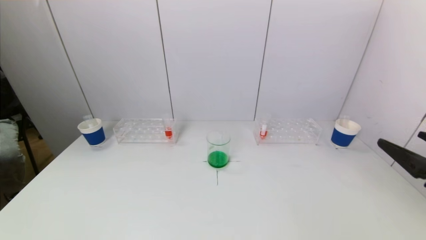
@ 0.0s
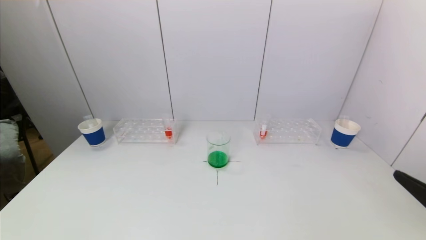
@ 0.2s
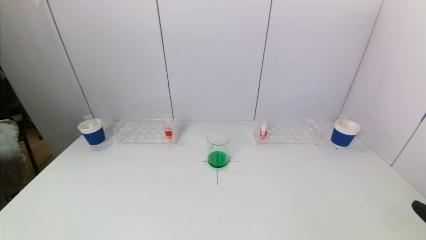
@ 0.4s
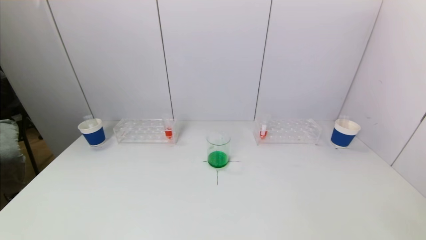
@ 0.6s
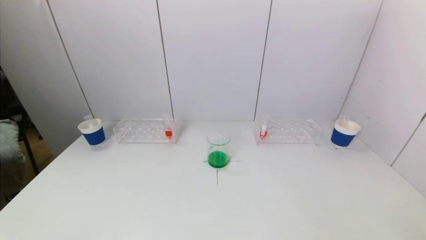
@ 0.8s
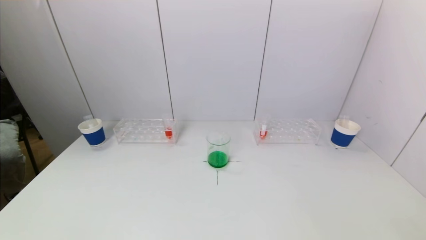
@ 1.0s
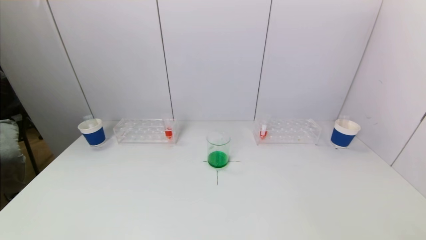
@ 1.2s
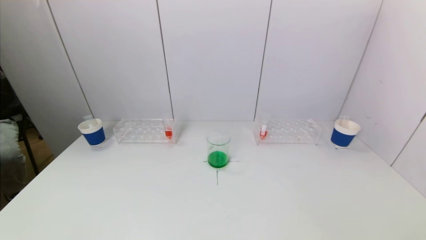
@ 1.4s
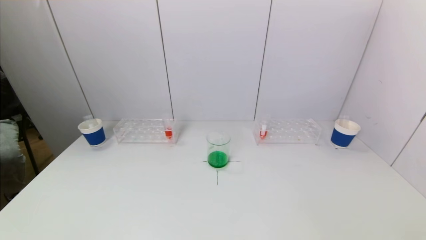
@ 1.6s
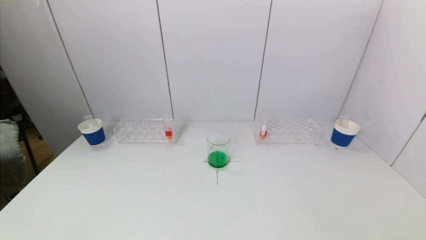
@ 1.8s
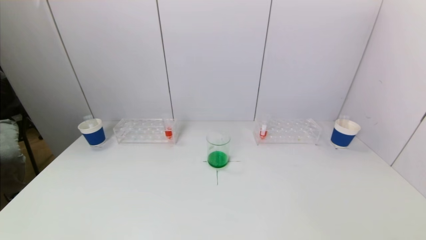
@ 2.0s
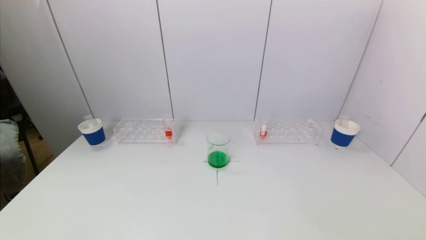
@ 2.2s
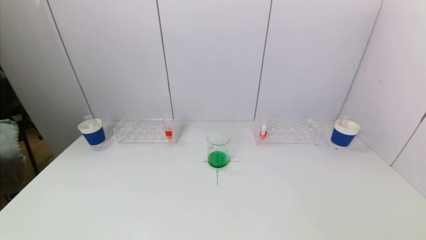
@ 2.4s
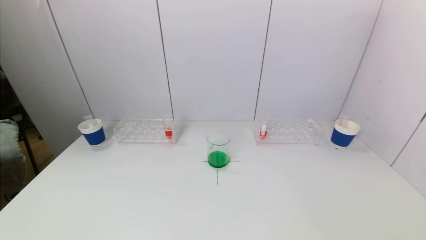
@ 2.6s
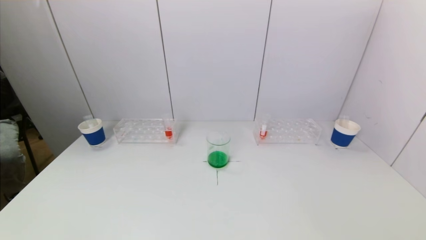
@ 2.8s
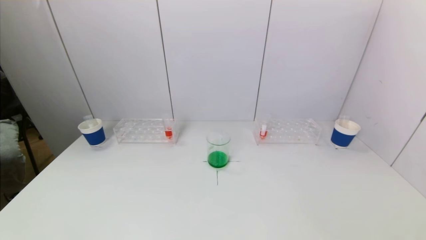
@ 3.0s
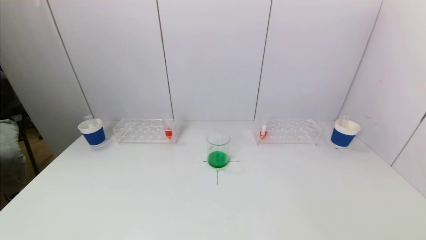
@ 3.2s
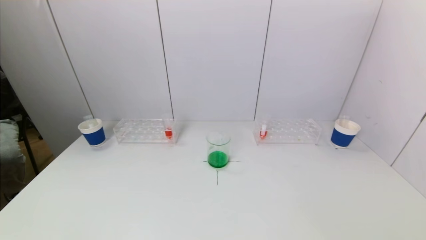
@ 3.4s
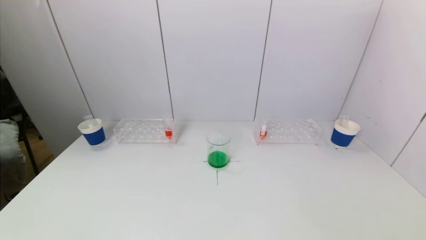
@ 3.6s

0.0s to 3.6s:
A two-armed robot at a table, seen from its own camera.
Task of the whole recording: pick up a test tube with pigment on left test tube rack and a test tube with pigment on right test tube rack by grippers and pour them into the beaker.
0.0s to 1.8s: The right gripper heads backward and downward, covering about 20 cm.
1.8s to 3.6s: Both grippers stay about where they are.
